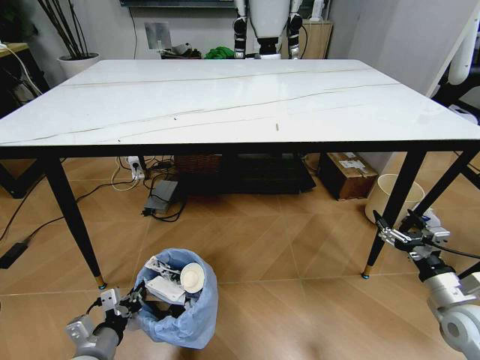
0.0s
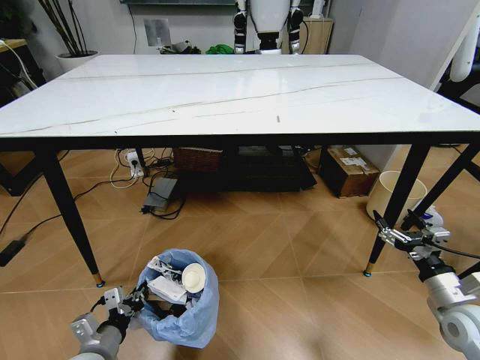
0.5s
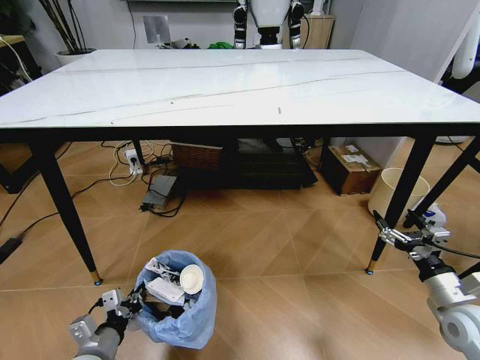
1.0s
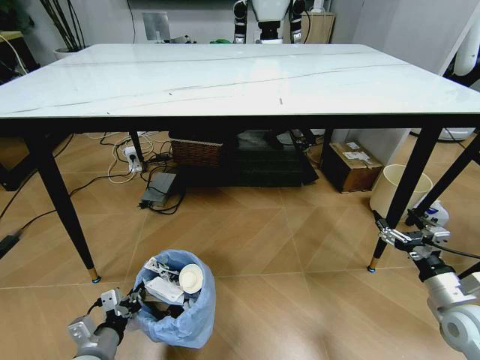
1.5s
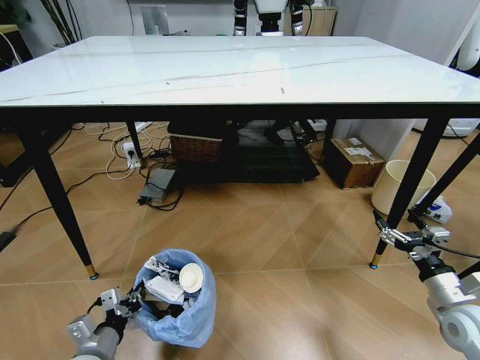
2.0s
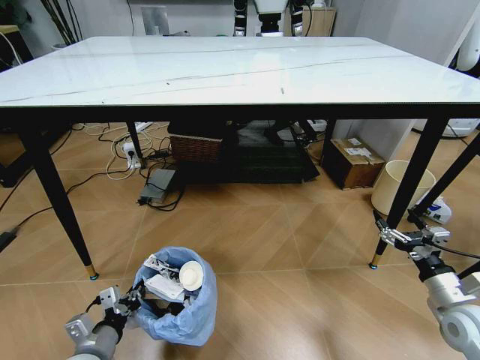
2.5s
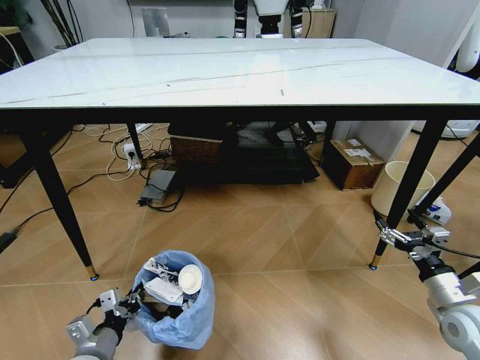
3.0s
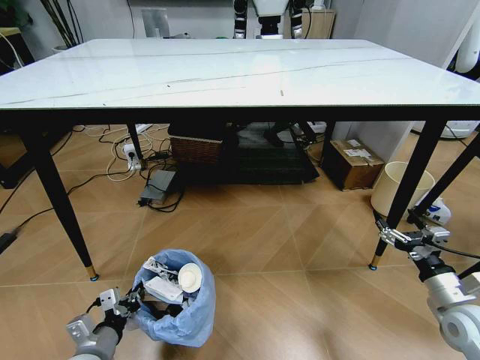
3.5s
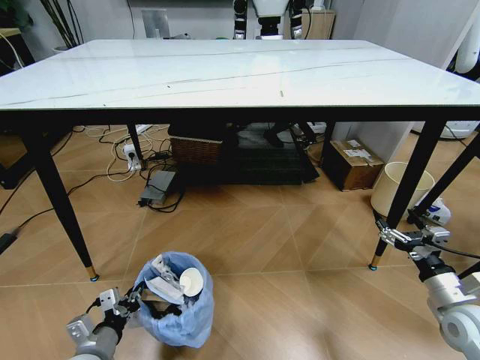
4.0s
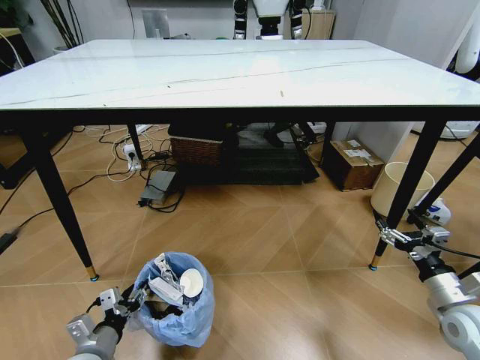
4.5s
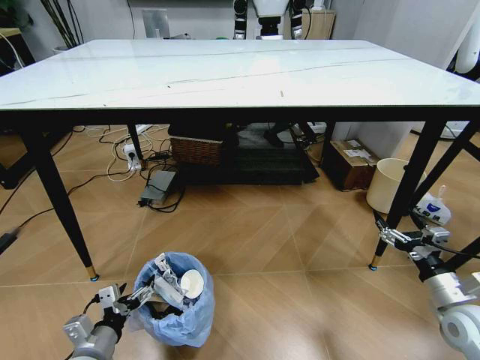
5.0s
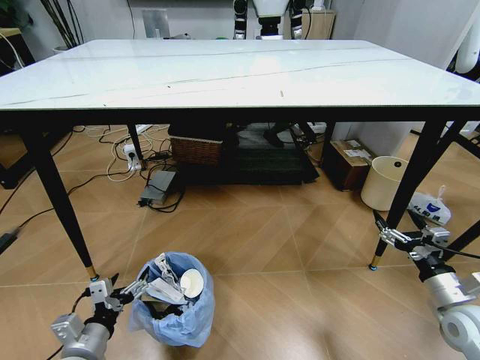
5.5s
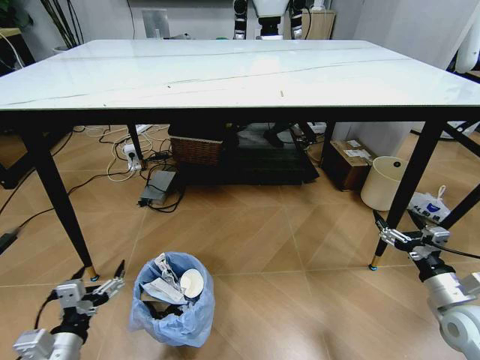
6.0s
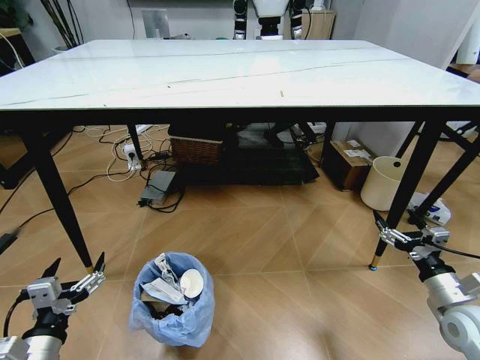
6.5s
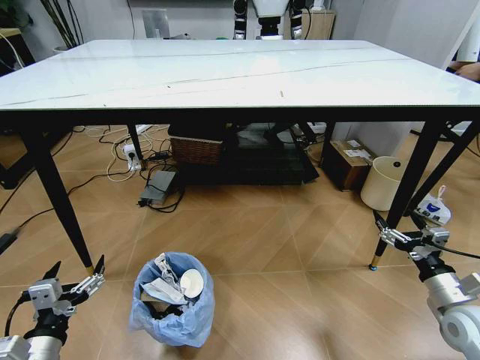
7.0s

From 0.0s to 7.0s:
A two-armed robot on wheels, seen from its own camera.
Task of the whole recording: Pick up the trash bin and place the trash from the table into it.
From 2.0s to 3.5s: Both grippers stay about where they are.
From 3.5s to 5.0s: The left gripper opens.
From 5.0s to 7.0s: The left gripper travels upward by approximately 10 cm.
